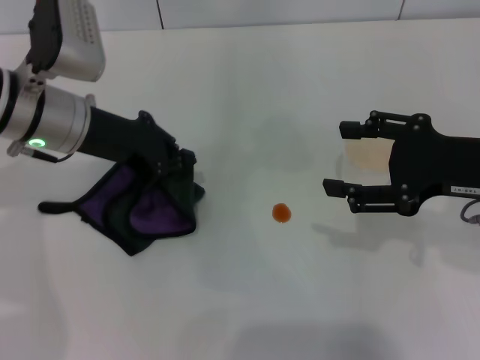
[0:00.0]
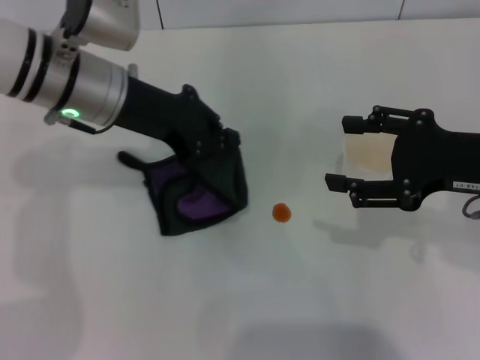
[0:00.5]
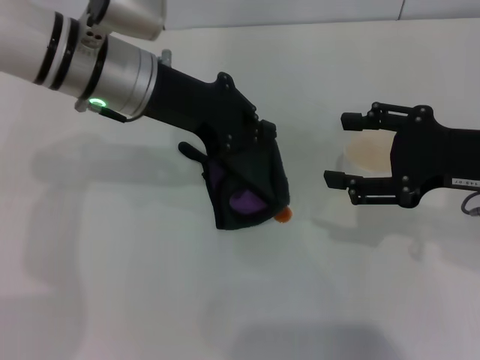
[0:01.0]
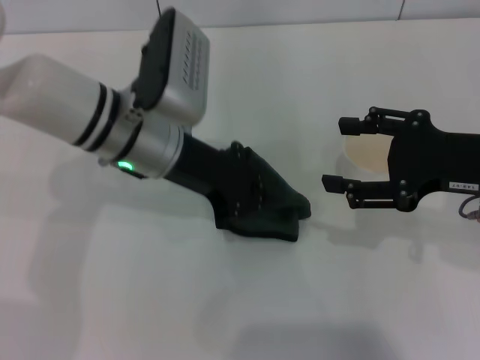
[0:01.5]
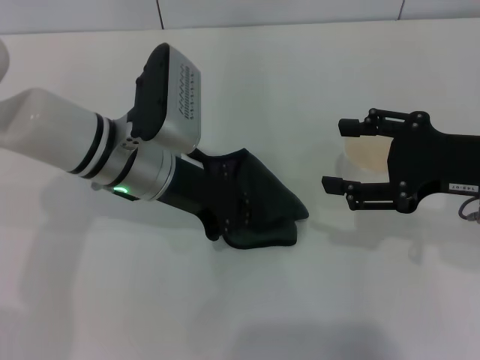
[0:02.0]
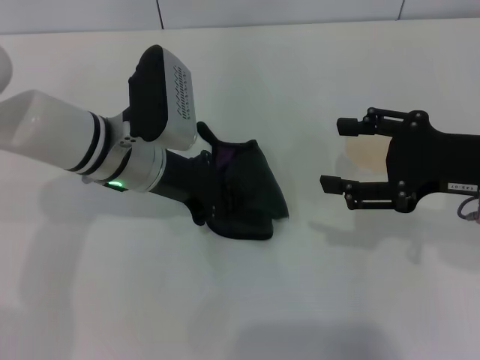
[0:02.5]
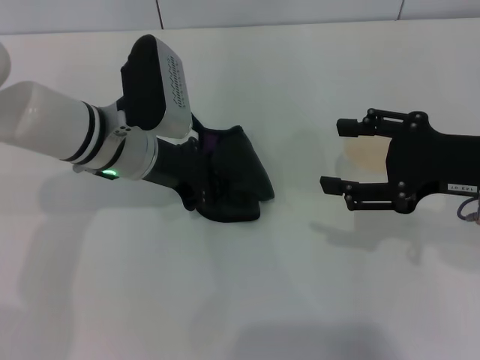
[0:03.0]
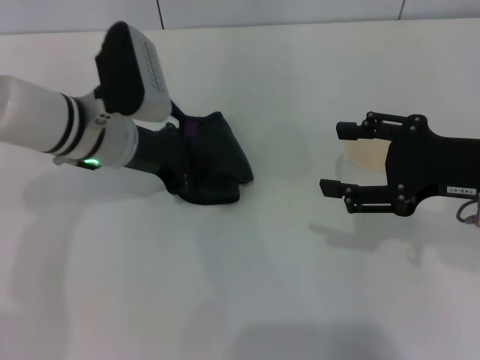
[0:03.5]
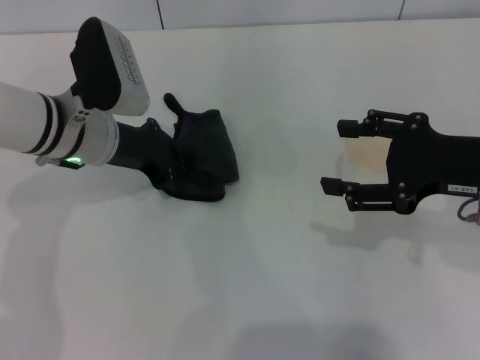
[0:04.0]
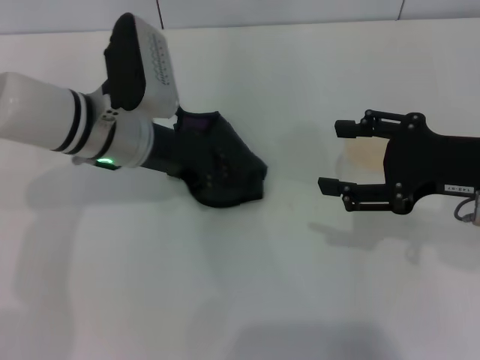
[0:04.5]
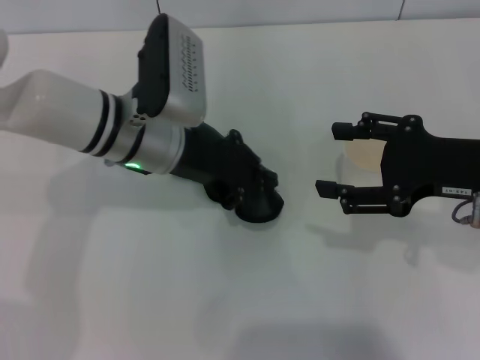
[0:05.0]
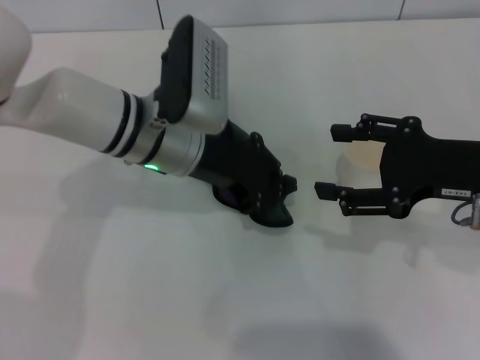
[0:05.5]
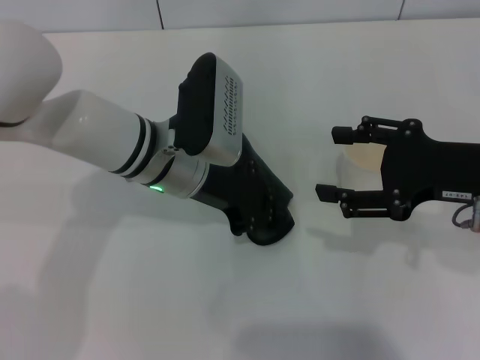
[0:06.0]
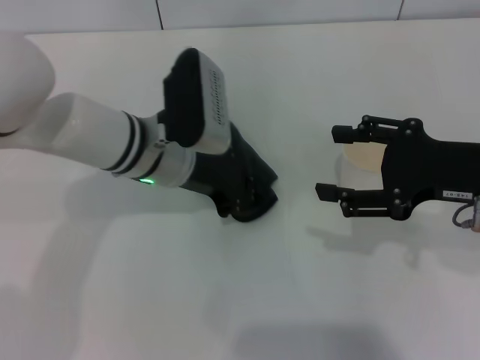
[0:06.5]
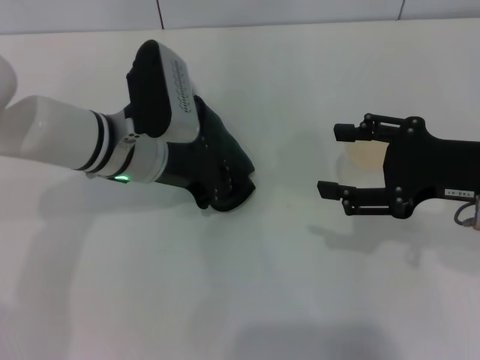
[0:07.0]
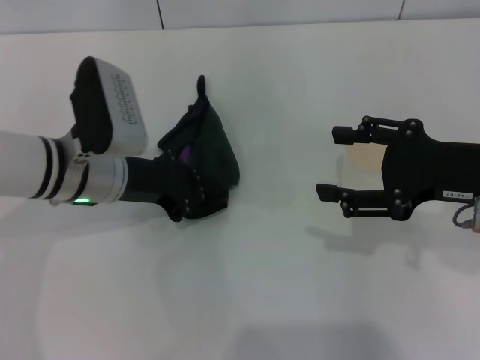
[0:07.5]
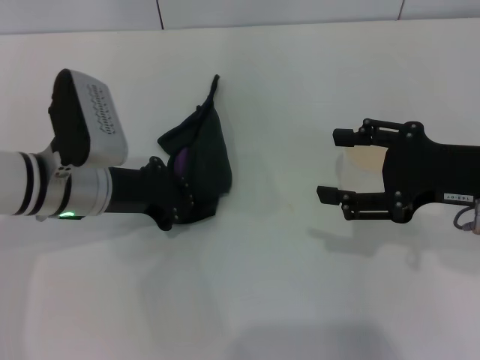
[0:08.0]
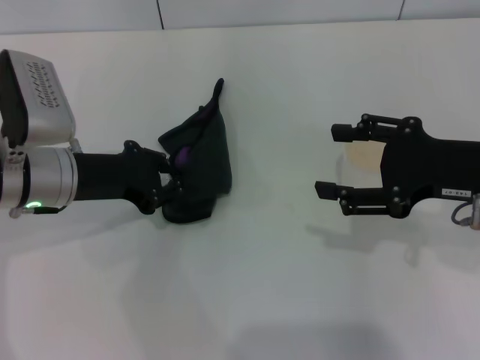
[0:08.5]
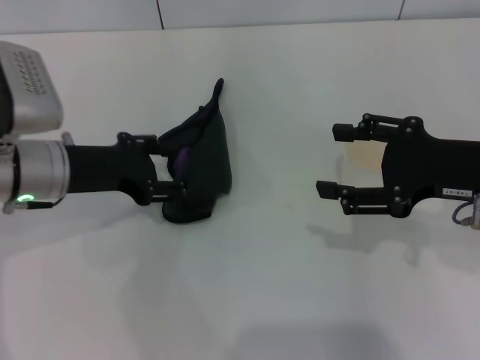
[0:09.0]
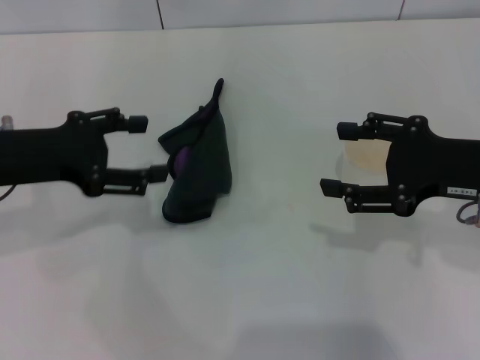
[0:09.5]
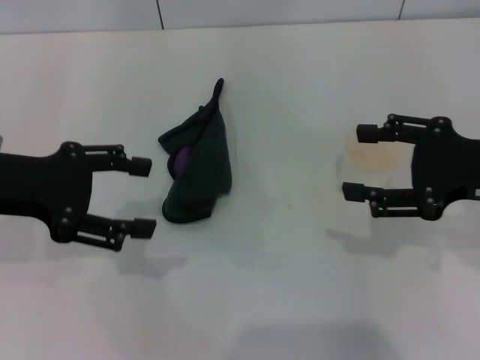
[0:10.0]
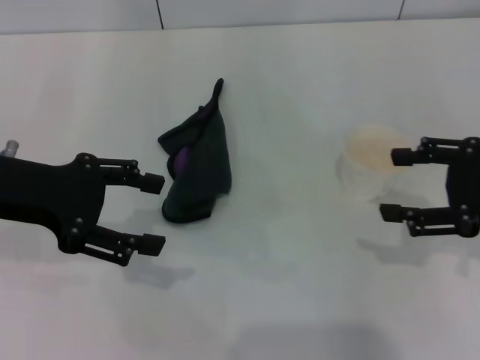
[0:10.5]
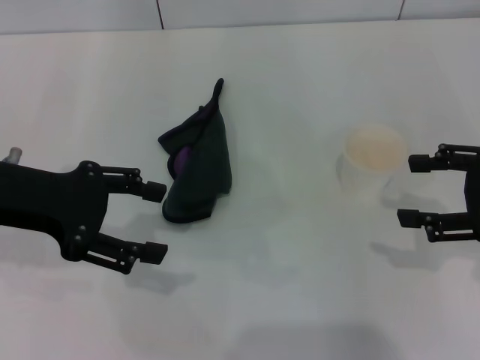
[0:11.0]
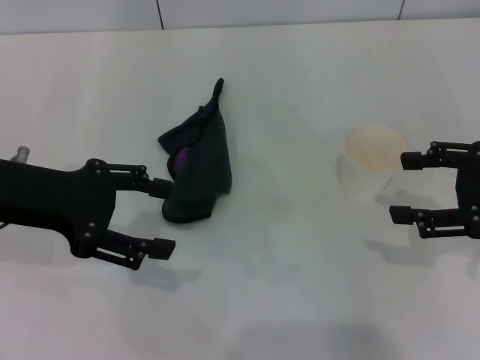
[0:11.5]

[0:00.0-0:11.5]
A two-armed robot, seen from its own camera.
Step, 0:00.0 to 0:08.0: Wipe the stains off the table with the left gripper.
Step, 0:08.5 to 0:09.0: Place the rag on the table with the left gripper.
0:00.0 to 0:02.0: The left gripper travels to the right by some 5 cm.
0:02.0 to 0:04.0: The left gripper shifts approximately 5 cm to the left.
0:04.0 to 0:06.0: The left gripper moves to the right, approximately 10 cm.
0:06.0 to 0:07.5: The left gripper moves to the left, about 10 cm.
0:07.5 to 0:09.5: The left gripper goes about 10 cm to the left and upward, and opens its fingers.
0:09.5 to 0:11.5: The right gripper shifts approximately 5 cm to the right.

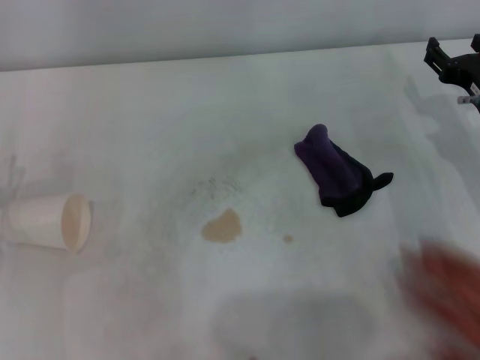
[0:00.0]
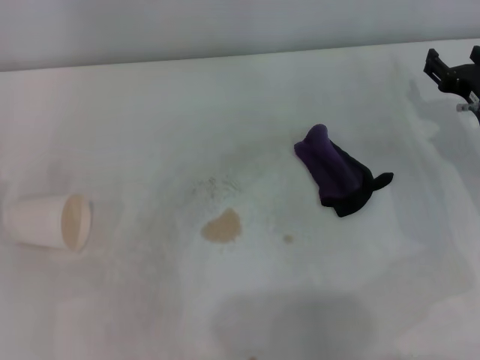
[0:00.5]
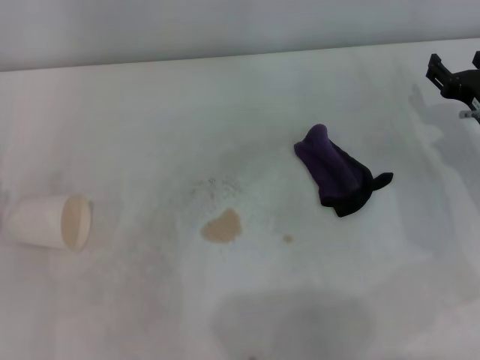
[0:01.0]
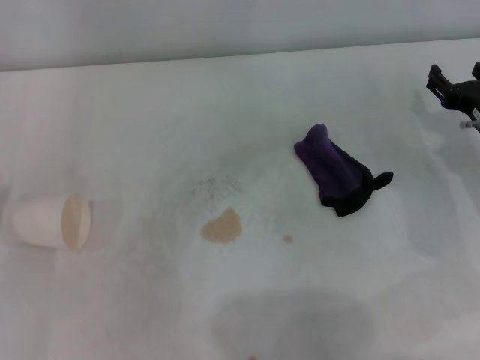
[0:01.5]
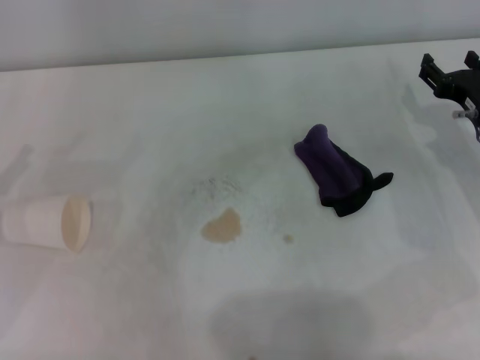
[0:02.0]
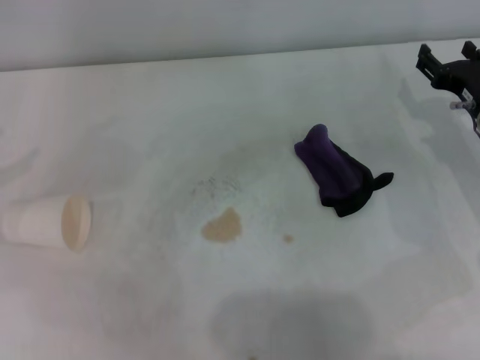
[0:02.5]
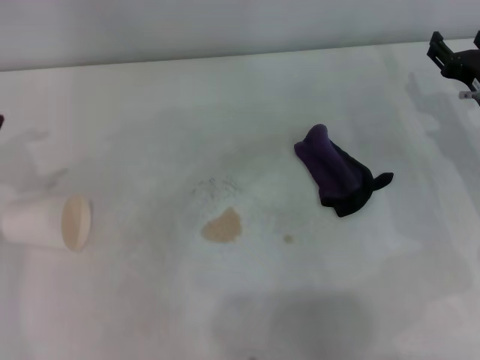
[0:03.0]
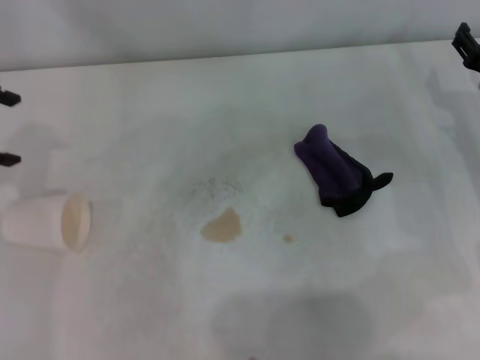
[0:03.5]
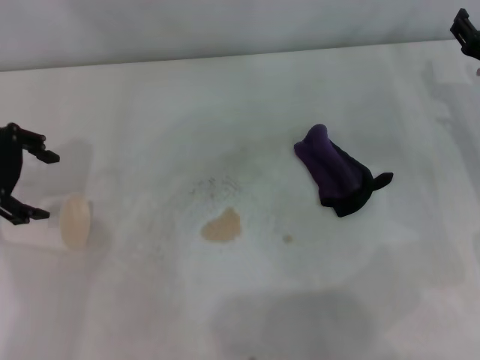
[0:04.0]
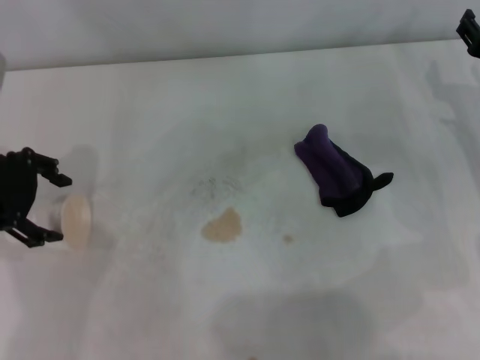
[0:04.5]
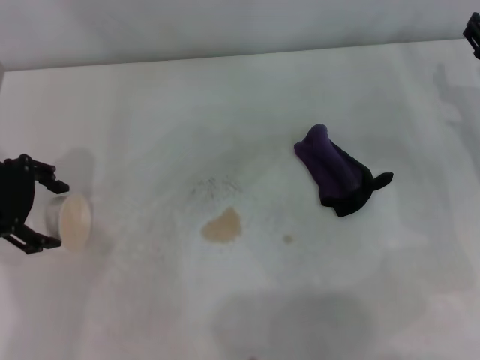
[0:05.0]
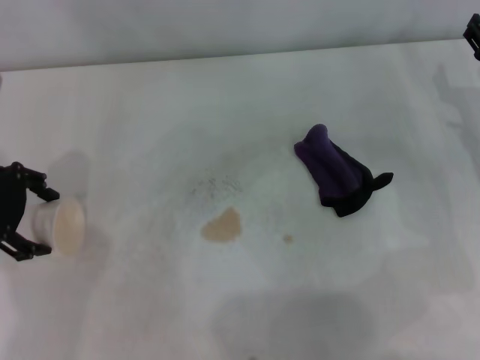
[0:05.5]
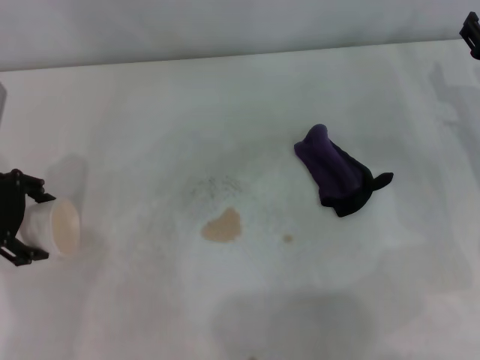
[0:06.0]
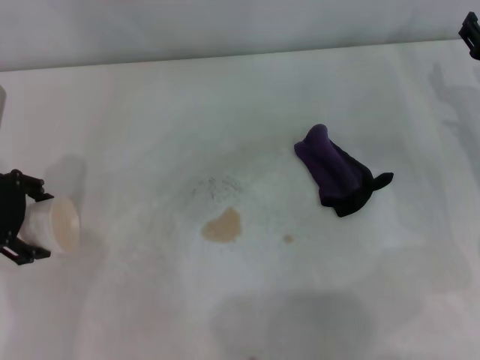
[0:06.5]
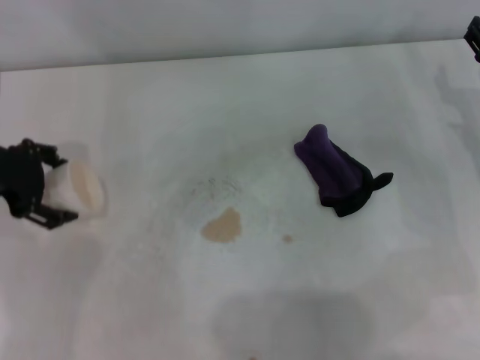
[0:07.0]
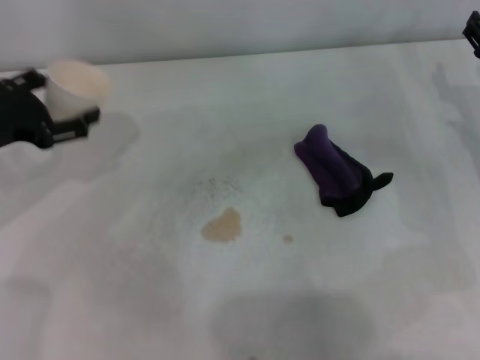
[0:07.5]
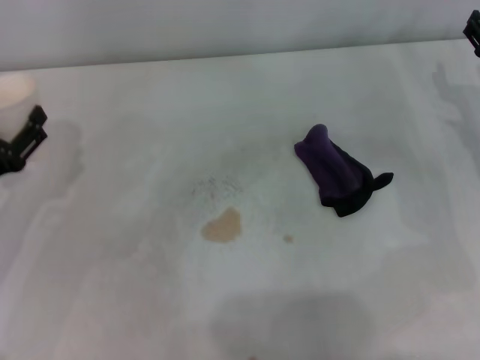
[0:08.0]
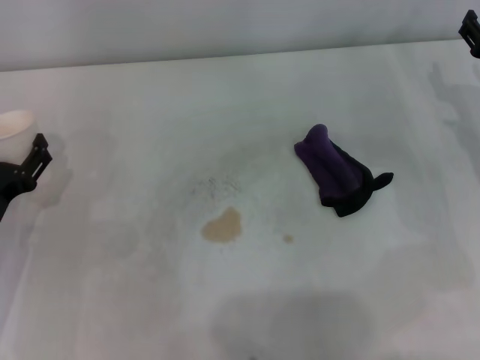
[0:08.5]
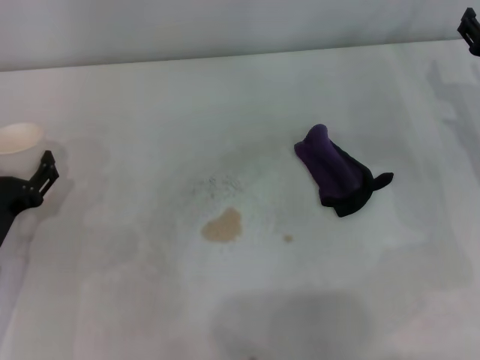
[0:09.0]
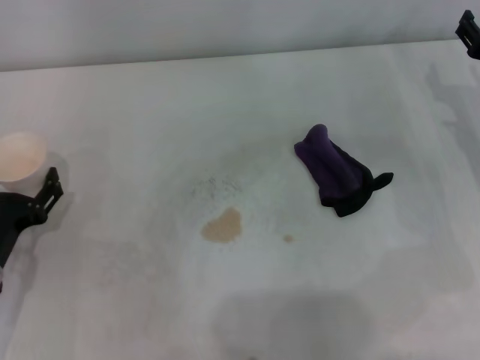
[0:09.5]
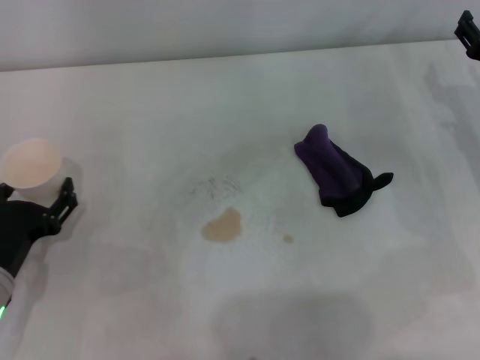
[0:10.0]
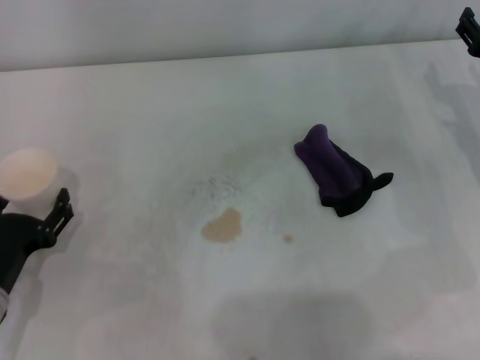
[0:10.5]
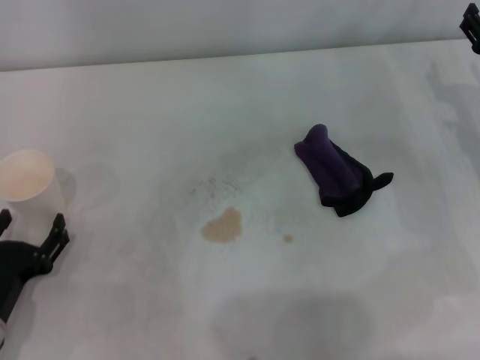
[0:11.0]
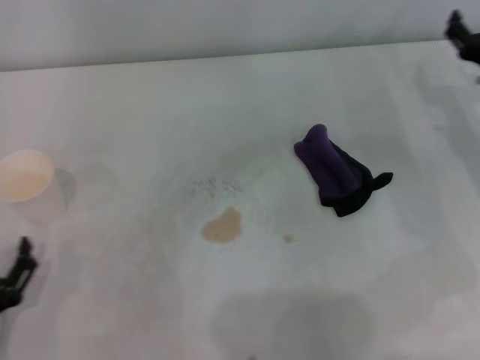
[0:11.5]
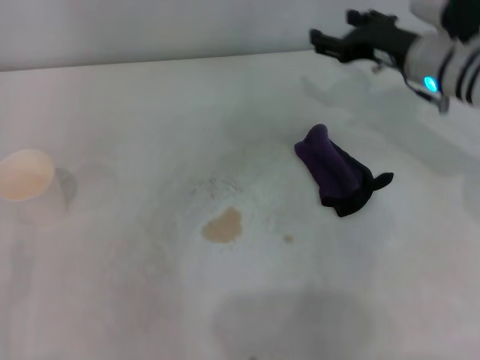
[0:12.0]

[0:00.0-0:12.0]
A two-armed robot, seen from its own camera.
Step, 0:00.0 to 0:06.0: Grasp the paper cup with the left gripper.
Step, 0:07.0 to 0:10.0: Stand the paper cup upright with the left gripper.
0:02.0 to 0:04.0: The left gripper goes about 15 cm forward, upward and to the right.
0:04.0 to 0:06.0: The grippers move only a little.
0:06.0 to 0:08.0: The left gripper is displaced downward and backward by some 15 cm.
0:08.0 to 0:10.0: The left gripper changes place by roughly 5 cm.
0:10.0 to 0:12.0: The right gripper goes roughly 10 cm to the left and forward. The left gripper moves backward and to the left, approximately 10 cm.

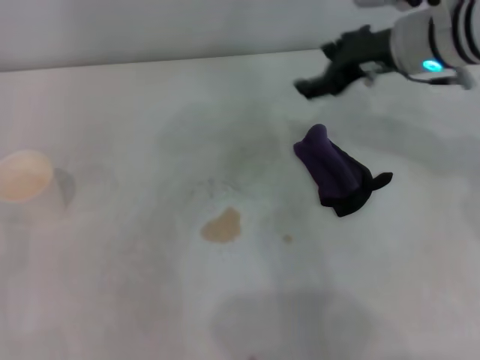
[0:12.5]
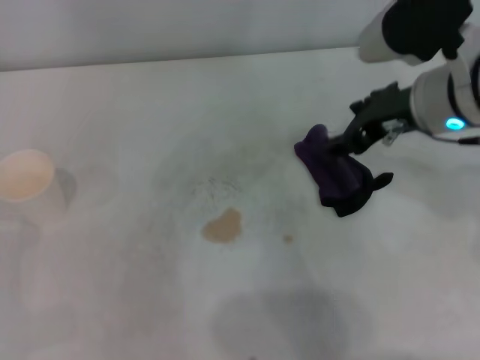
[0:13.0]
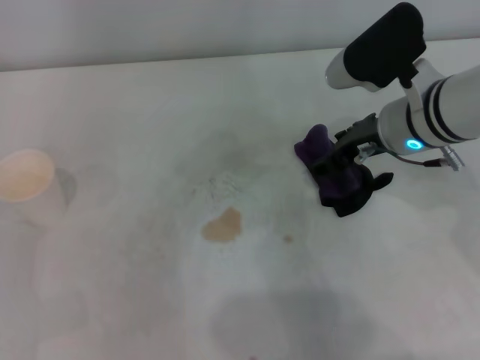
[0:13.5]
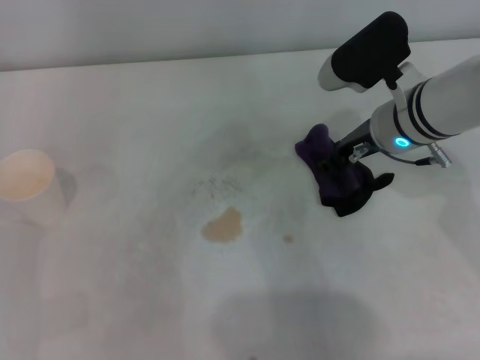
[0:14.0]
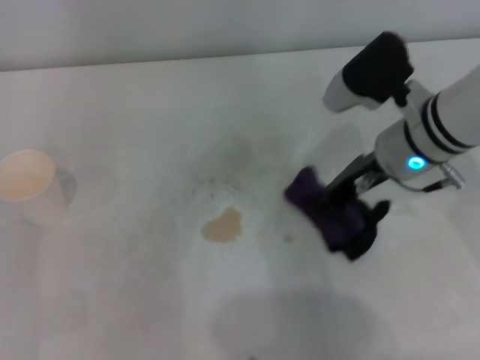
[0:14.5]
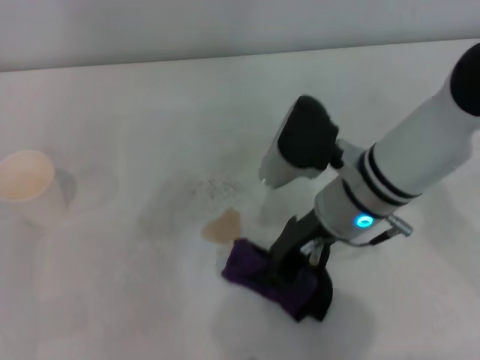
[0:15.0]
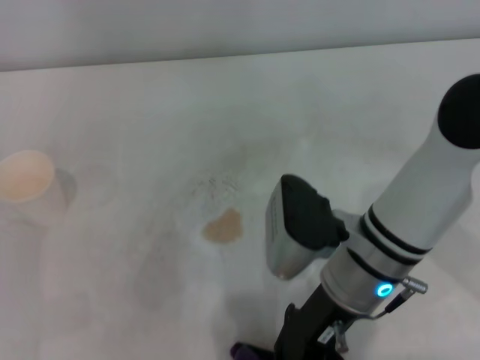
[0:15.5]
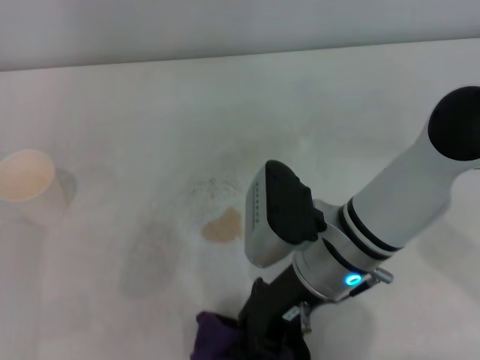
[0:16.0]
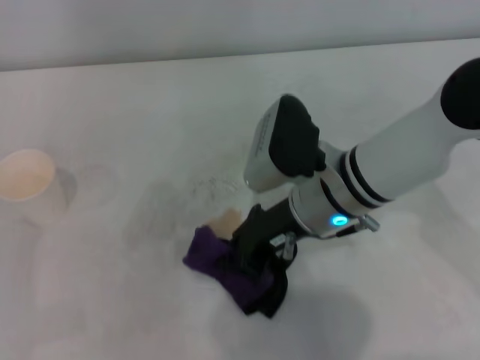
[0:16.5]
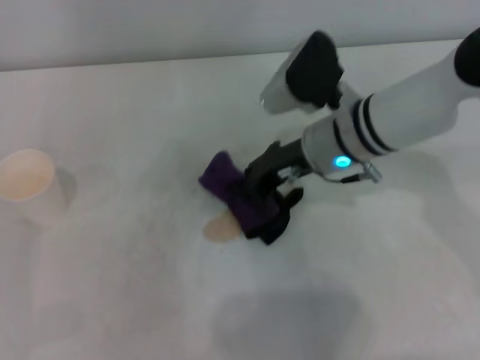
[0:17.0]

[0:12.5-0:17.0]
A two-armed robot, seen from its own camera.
0:12.5 to 0:14.5: The right gripper shifts some 5 cm downward, and closes its fingers.
0:14.5 to 0:17.0: The right gripper heads to the left, covering some 5 cm, and travels backward and back again, approximately 10 cm each way.
